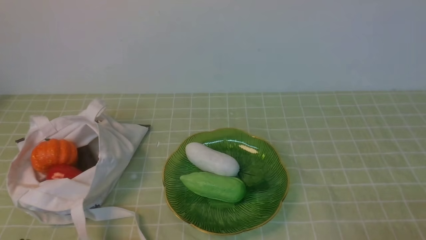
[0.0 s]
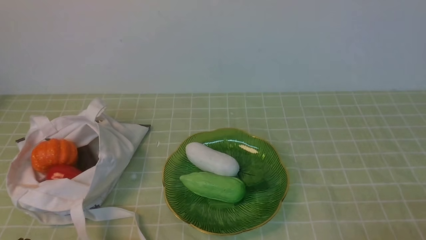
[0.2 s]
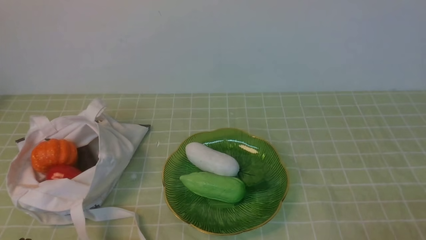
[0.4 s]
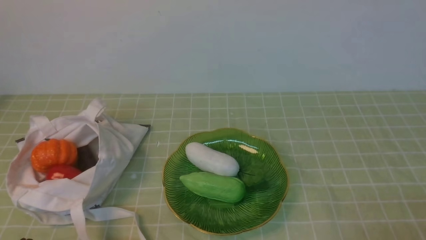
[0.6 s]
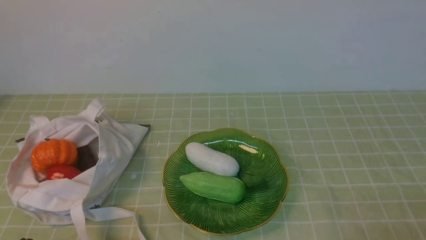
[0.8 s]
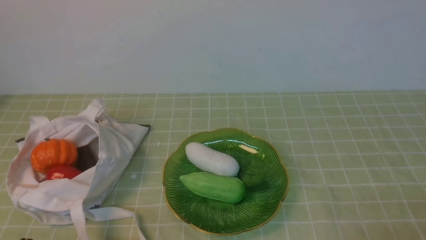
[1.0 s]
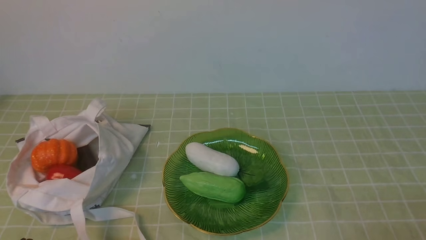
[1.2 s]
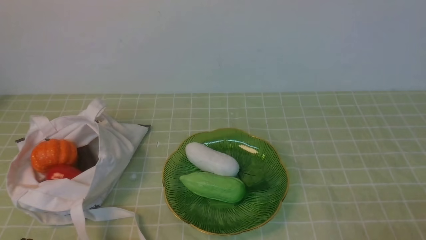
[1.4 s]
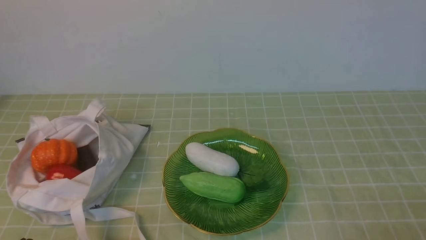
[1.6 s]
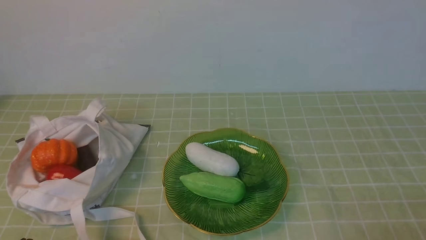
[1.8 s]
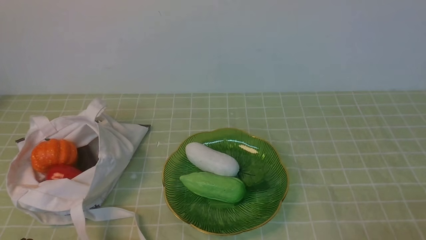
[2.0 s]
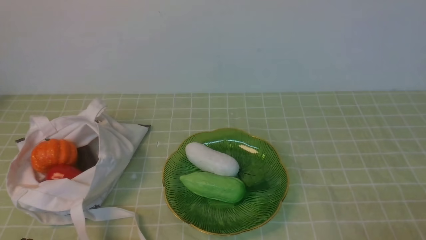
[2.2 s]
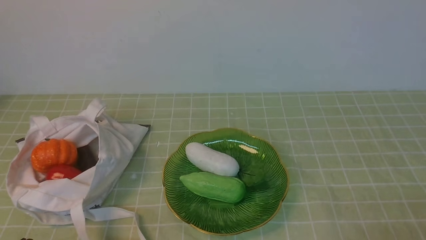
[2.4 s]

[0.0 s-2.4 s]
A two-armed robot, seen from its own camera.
Task of the whole recording: take vegetables from bag on green coffee tablecloth place on plate.
1.2 to 2.4 s: Both grippers stay about where they are.

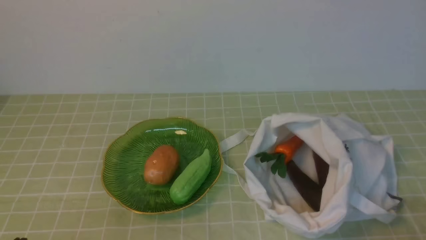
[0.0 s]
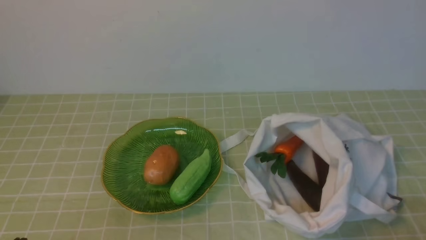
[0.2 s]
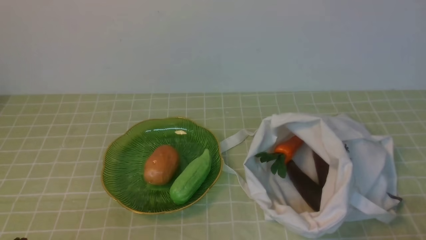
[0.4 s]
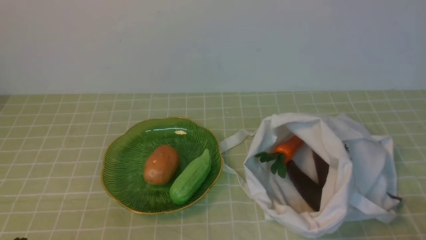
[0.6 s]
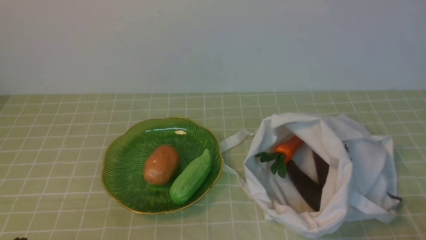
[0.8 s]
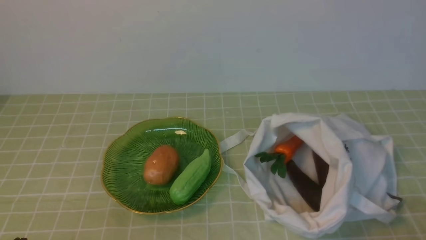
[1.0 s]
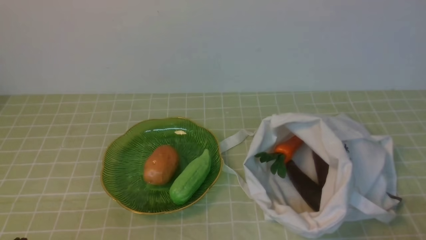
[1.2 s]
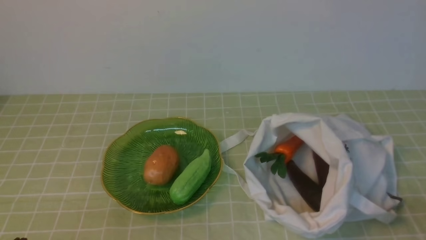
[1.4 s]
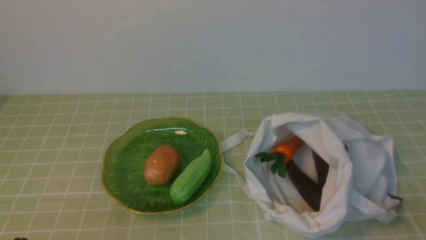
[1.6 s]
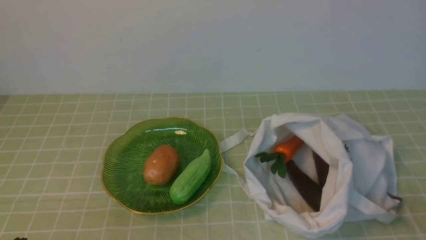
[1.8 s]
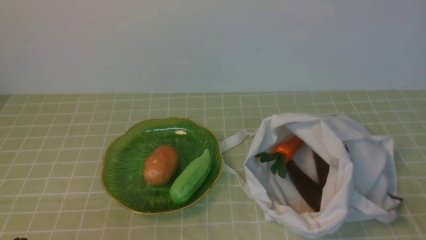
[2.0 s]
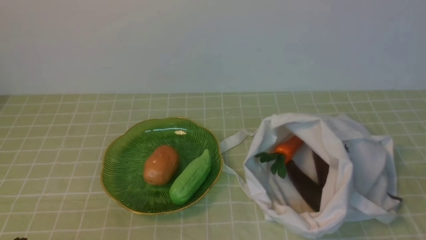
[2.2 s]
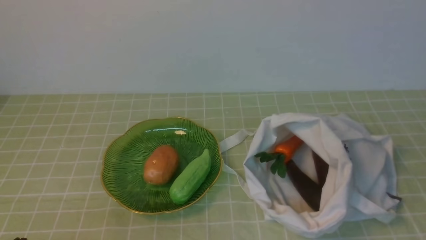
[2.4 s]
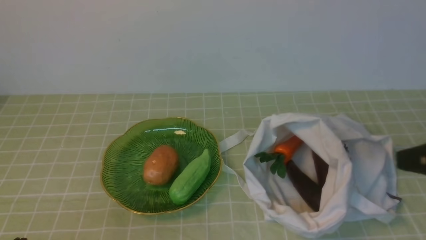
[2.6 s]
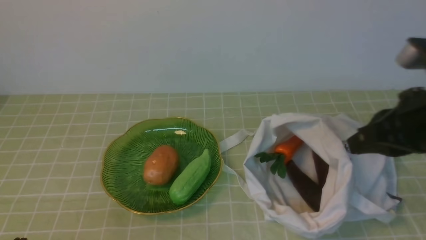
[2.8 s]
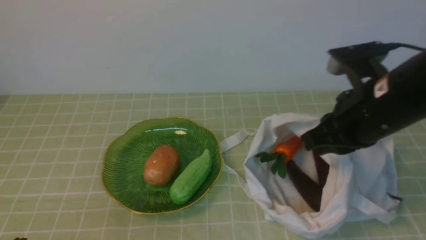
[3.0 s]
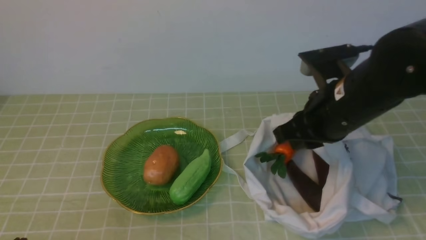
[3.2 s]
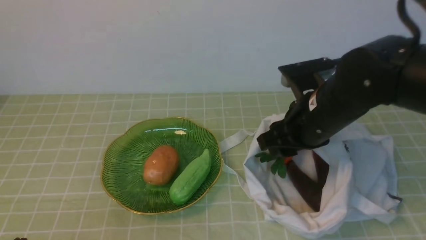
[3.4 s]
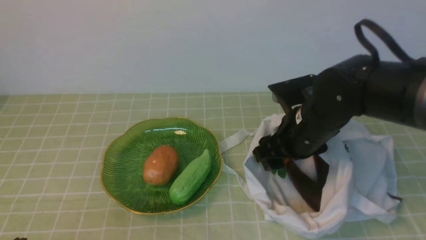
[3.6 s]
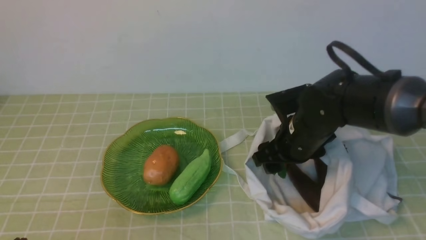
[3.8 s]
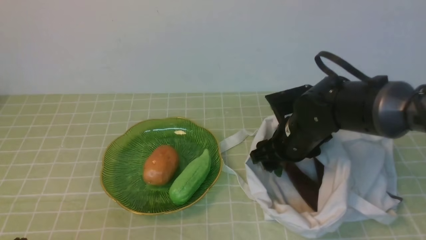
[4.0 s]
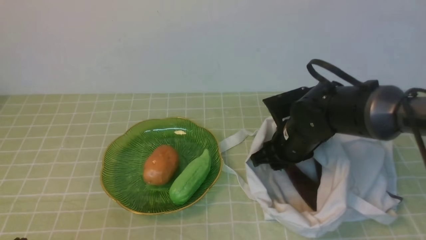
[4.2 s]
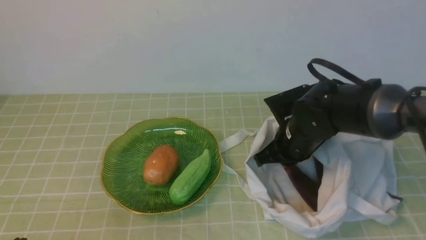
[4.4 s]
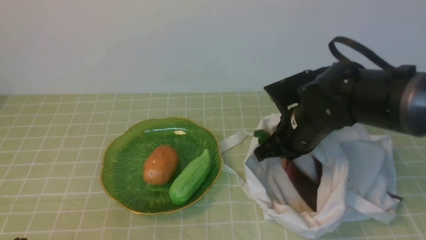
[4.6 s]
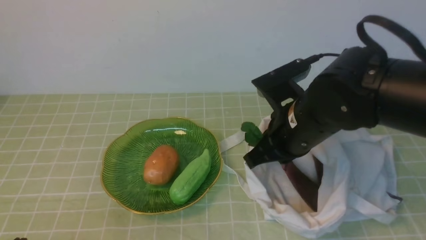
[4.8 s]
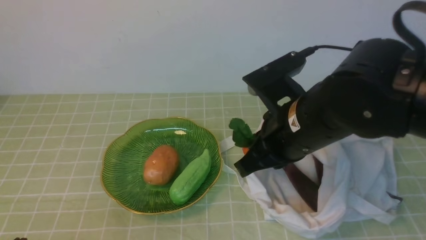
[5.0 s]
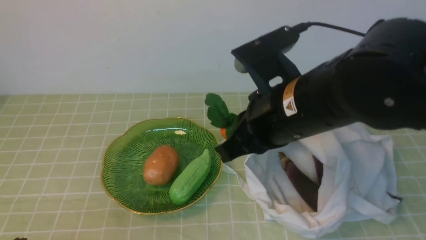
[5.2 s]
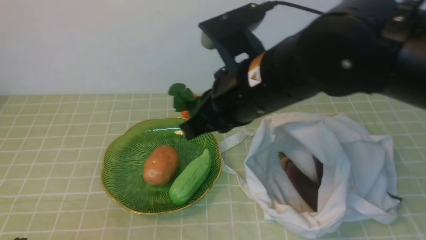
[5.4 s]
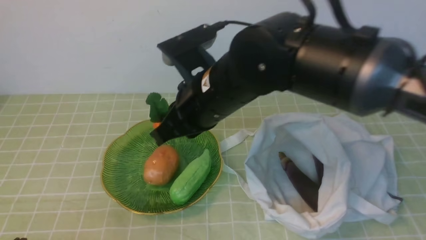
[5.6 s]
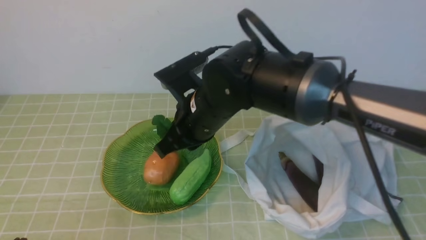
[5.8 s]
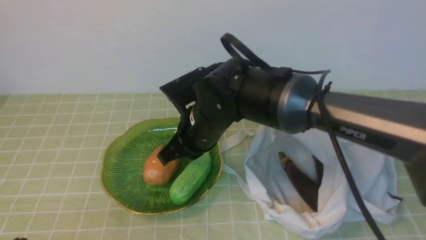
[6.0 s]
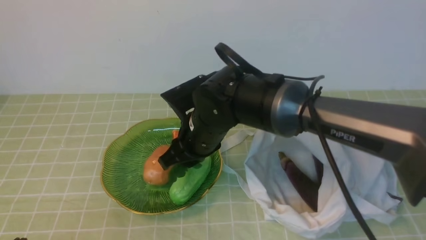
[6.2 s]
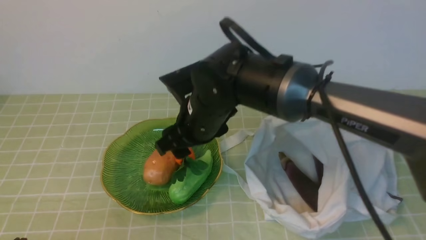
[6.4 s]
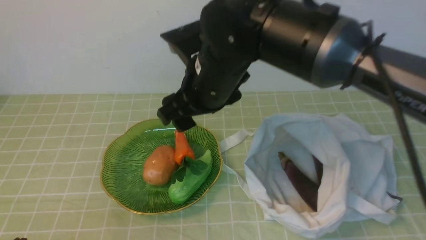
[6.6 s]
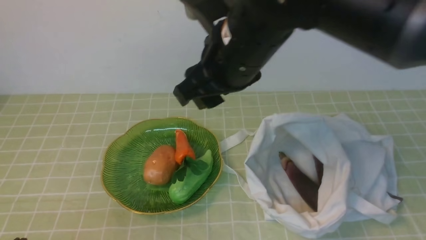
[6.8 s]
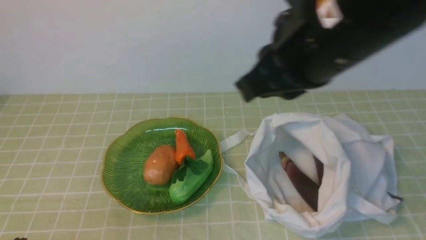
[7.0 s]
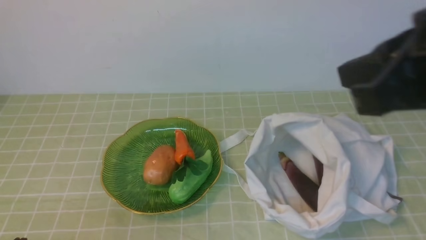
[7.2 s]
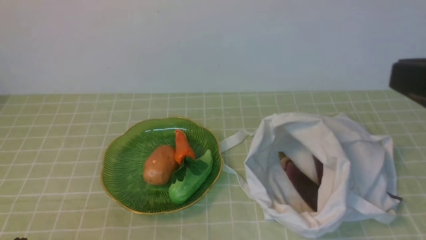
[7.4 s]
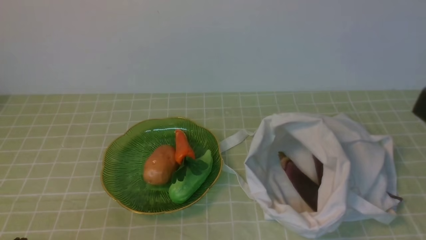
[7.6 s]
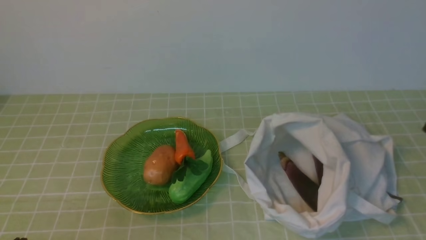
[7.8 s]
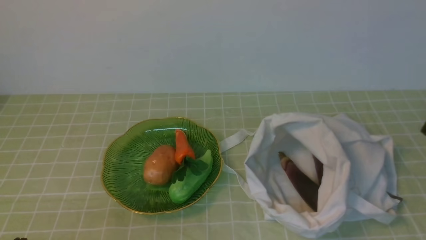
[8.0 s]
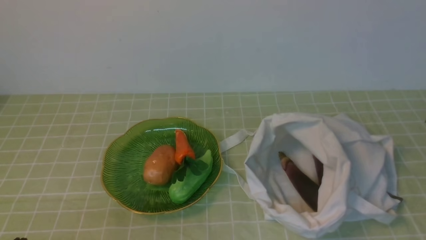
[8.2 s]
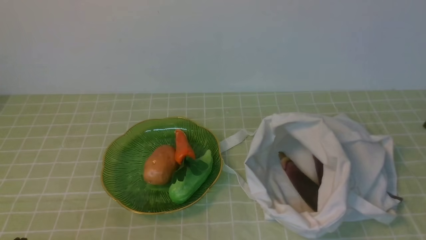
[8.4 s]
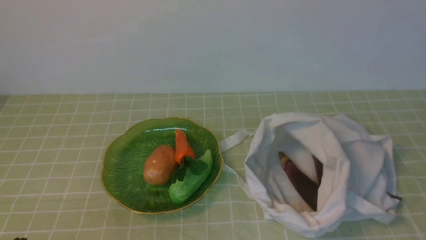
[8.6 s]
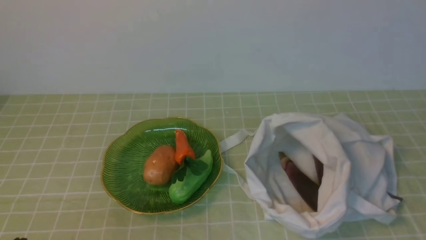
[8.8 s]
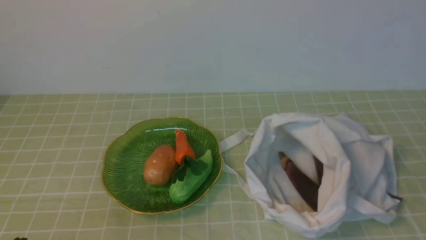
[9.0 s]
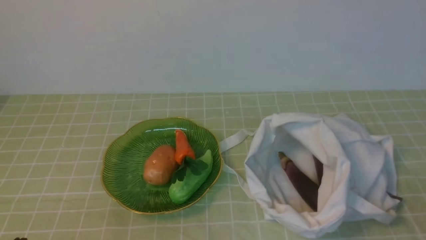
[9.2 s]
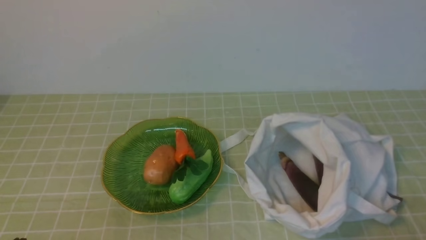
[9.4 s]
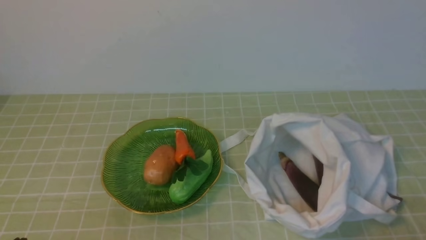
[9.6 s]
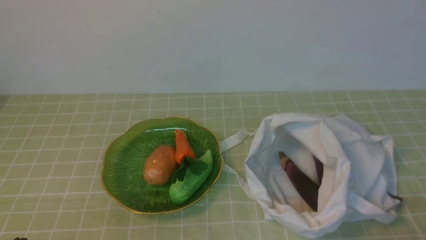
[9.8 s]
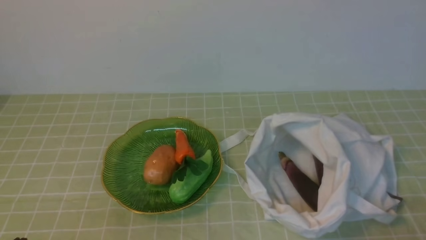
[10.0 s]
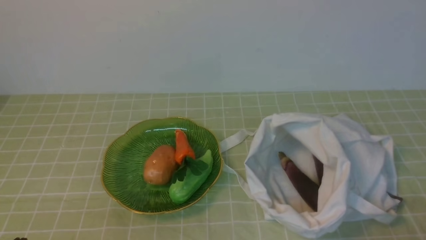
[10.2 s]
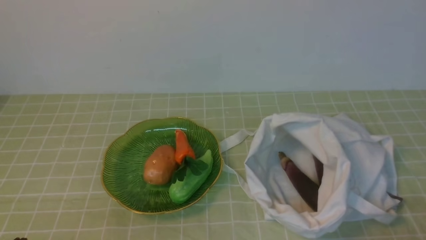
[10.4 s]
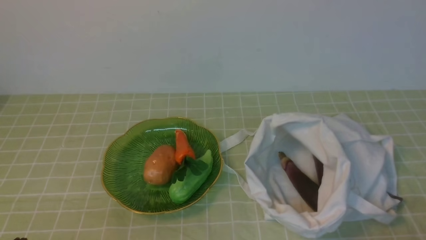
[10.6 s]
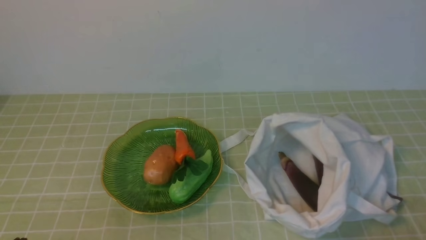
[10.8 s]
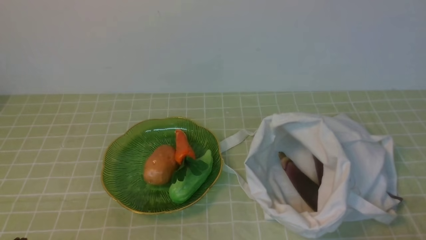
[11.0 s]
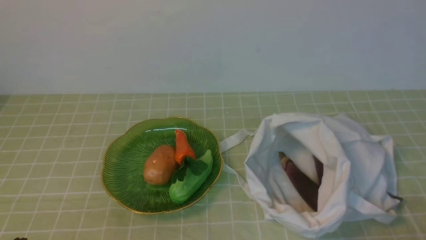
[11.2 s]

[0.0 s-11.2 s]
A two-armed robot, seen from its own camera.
Task of the whole recording: take vegetables from bag on green coffee tablecloth place on plate.
Step, 0.0 to 4.4 s: Grasp the carrot with right gripper.
Step, 4.6 to 6.4 s: Place the carrot on the plate with right gripper.
1.6 to 3.2 s: The right gripper goes roughly 25 cm forward, to the left and upward.
3.2 to 4.8 s: The right gripper moves to the left, about 5 cm, and opens, then closes once more.
4.8 to 6.4 s: The right gripper moves to the left, about 15 cm, and opens its fingers.
6.4 to 8.0 s: The right gripper moves to the right, backward and upward, approximately 40 cm, and closes.
9.6 to 11.2 s: Both grippers stay put.
